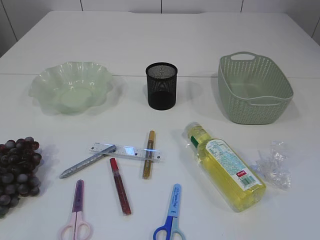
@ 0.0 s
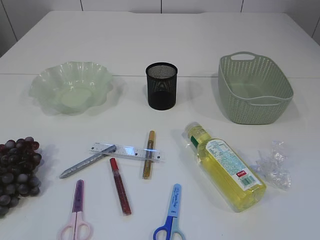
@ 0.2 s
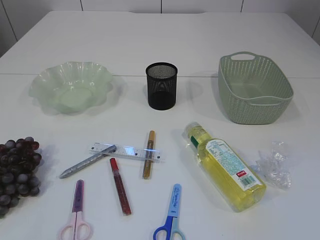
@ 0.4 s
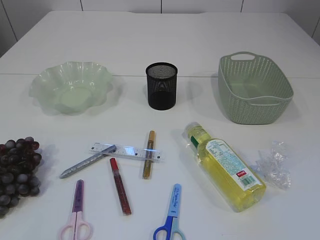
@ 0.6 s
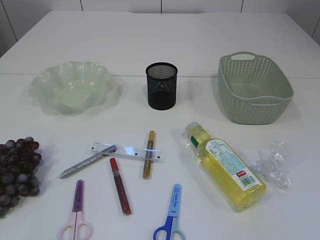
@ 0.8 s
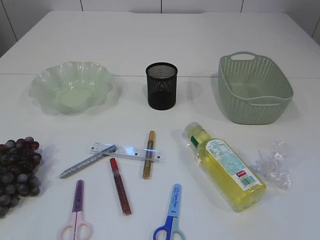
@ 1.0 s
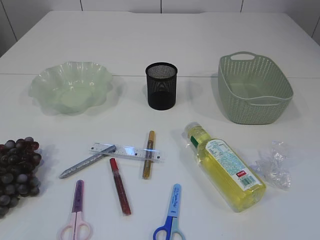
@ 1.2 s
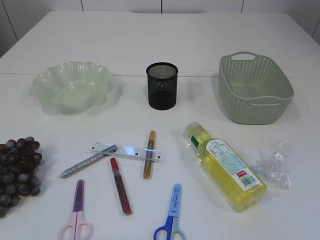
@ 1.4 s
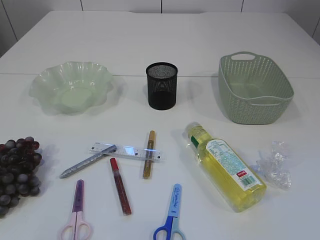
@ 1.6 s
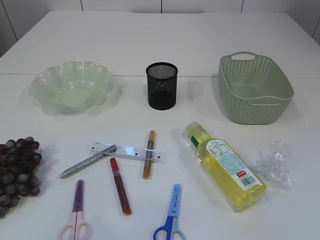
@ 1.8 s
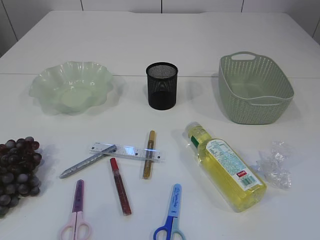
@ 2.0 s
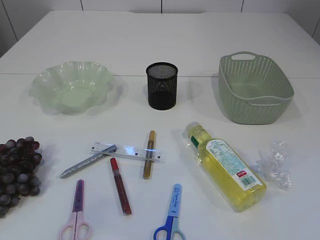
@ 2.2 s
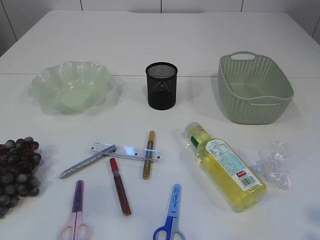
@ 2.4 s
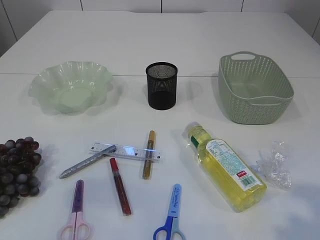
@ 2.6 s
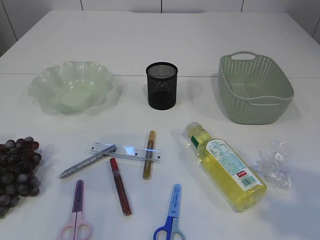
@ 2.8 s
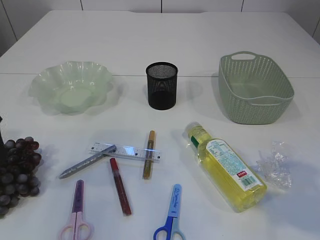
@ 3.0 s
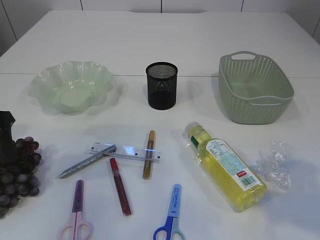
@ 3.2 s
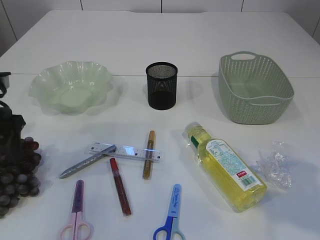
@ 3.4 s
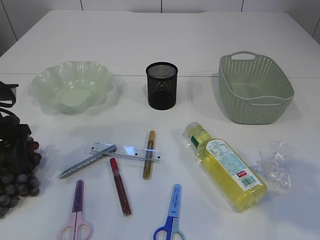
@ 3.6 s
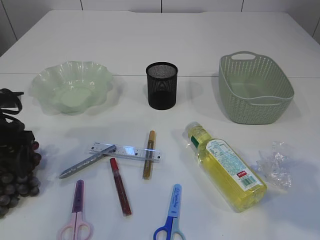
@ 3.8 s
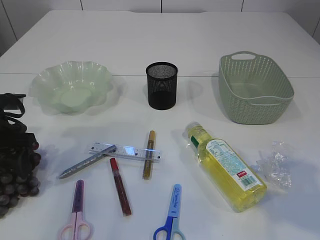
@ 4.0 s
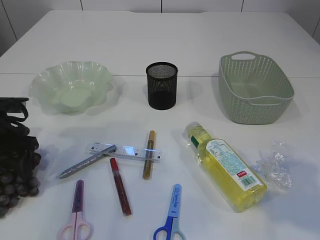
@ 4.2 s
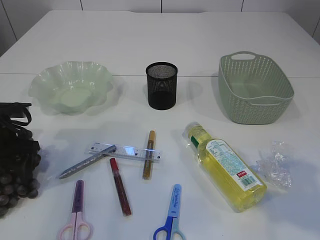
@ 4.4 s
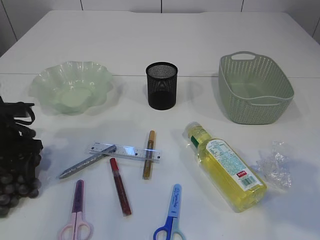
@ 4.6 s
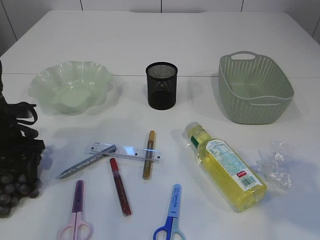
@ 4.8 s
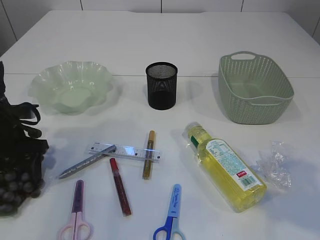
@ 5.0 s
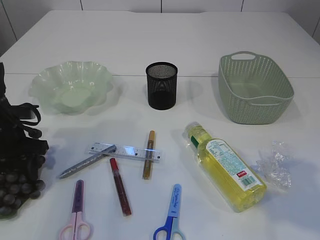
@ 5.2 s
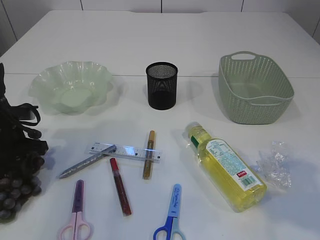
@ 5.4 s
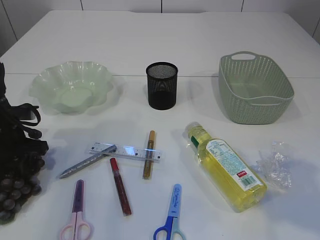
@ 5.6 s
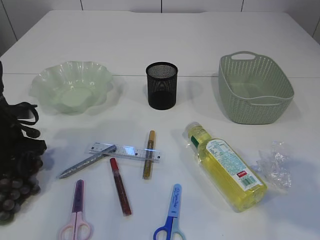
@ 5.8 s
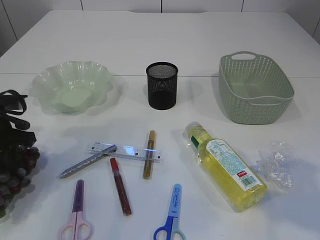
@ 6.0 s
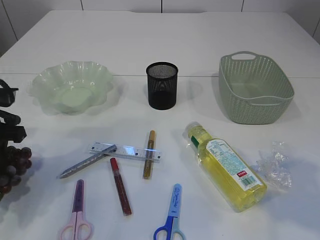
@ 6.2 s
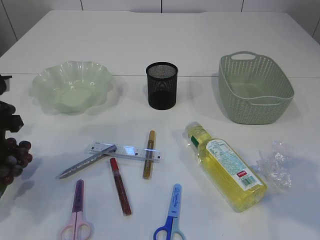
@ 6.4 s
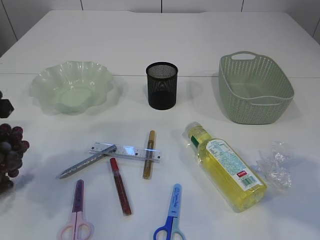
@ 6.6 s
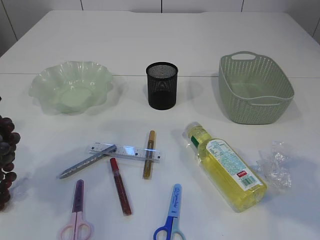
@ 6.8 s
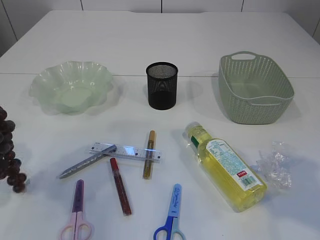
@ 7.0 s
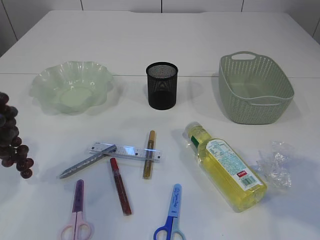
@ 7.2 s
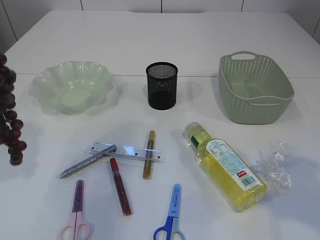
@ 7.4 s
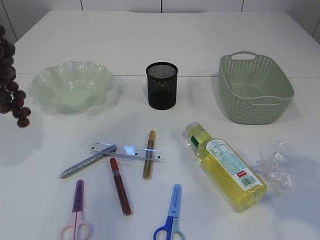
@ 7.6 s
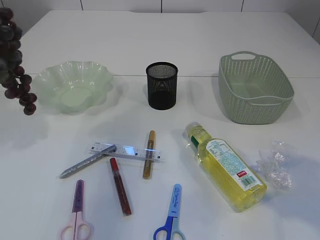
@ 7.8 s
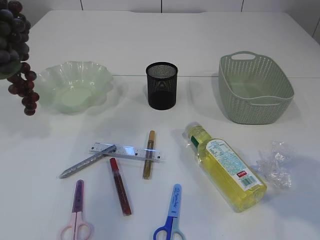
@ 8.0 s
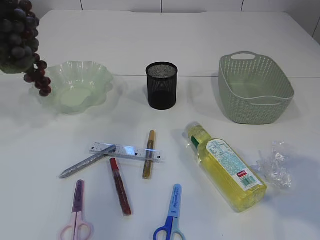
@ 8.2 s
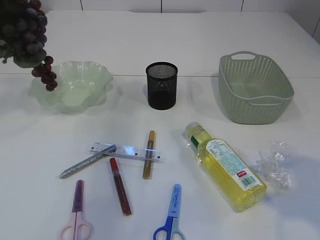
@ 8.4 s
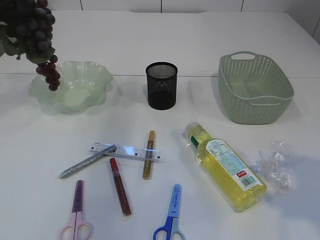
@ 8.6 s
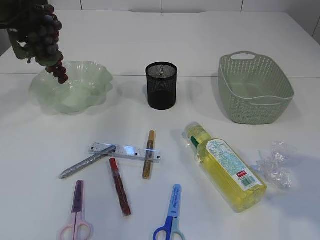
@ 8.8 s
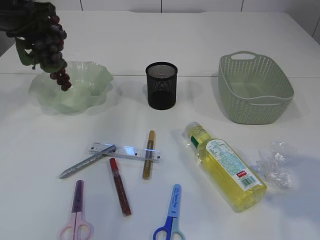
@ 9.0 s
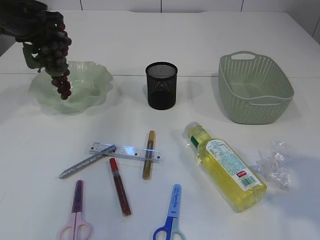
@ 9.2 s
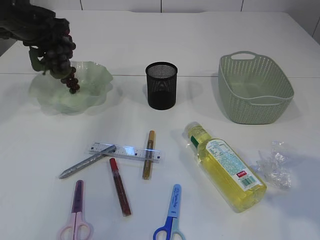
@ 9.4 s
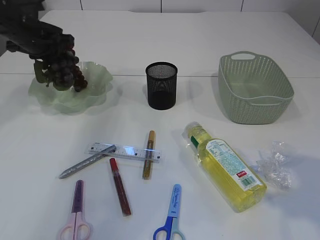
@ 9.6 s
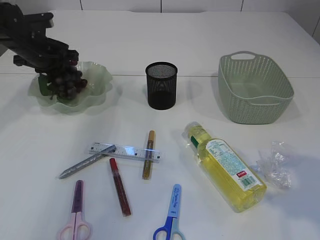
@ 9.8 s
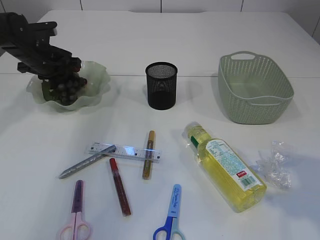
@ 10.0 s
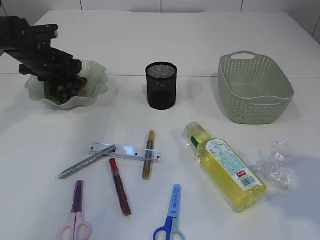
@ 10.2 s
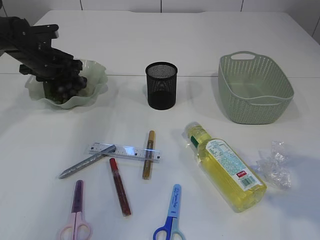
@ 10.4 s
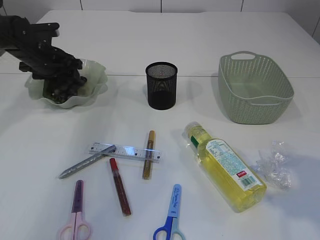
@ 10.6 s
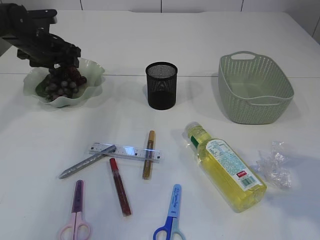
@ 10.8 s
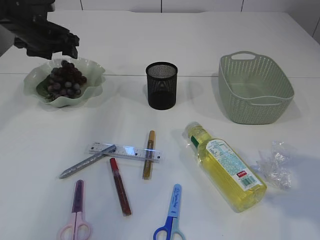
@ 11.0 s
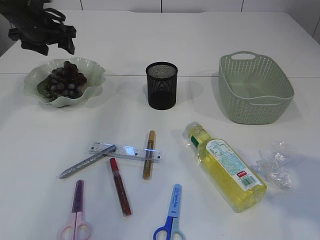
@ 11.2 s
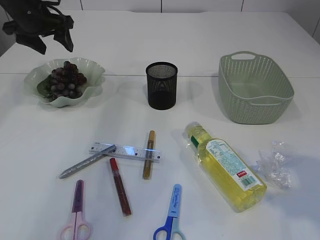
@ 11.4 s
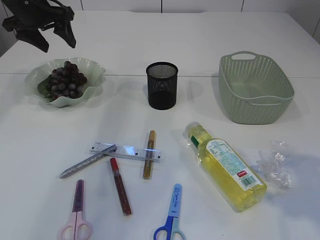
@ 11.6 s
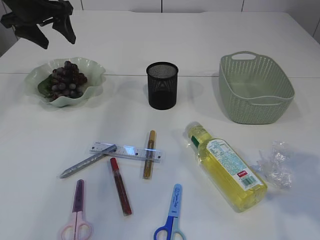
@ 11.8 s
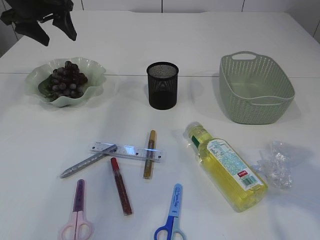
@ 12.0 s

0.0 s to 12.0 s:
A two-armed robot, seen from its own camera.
Step, 0.0 to 7.8 s: Pick up the grapes.
Step, 8.0 to 11.4 s: Place the grapes in the plate.
1.6 to 3.0 s: The right gripper moves forward and upward, roughly 15 cm; the left gripper travels forward by approximately 20 cm.
3.0 to 4.4 s: The left gripper shifts about 15 cm downward and forward.
4.4 to 6.0 s: The left gripper closes its fingers.
6.0 to 7.6 s: The left gripper shifts about 25 cm upward.
7.6 to 9.0 s: The left gripper shifts roughly 20 cm forward and downward.
9.0 to 10.4 s: The left gripper shifts some 15 cm downward and forward, and opens its fingers.
10.4 to 12.0 s: The left gripper travels upward by some 15 cm. The right gripper shifts by some 5 cm.

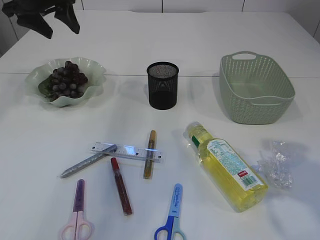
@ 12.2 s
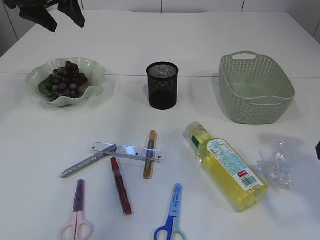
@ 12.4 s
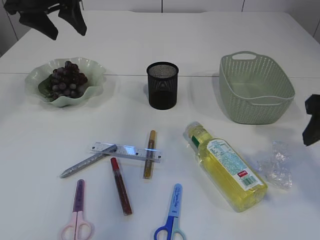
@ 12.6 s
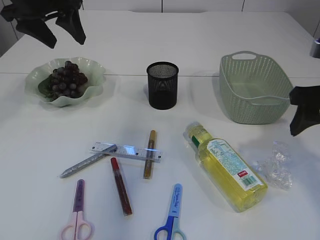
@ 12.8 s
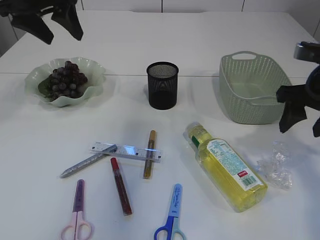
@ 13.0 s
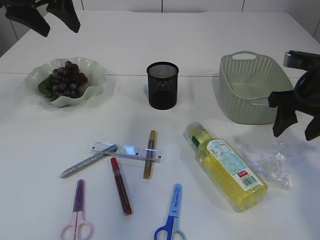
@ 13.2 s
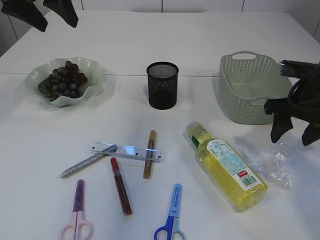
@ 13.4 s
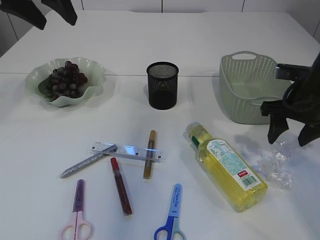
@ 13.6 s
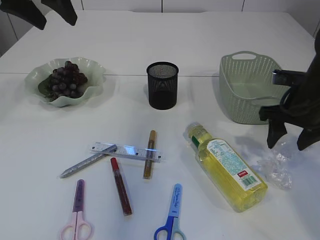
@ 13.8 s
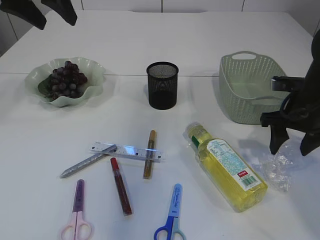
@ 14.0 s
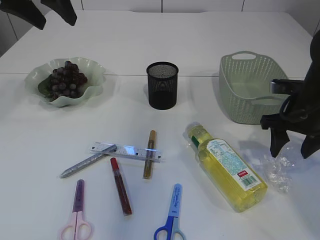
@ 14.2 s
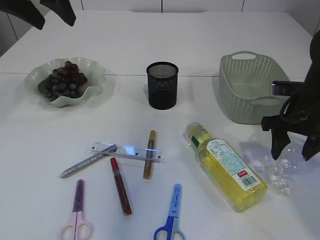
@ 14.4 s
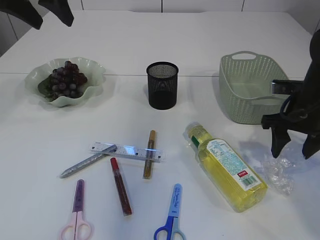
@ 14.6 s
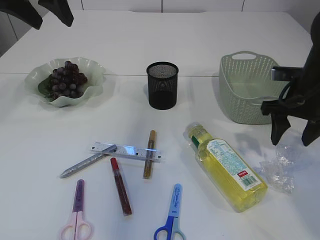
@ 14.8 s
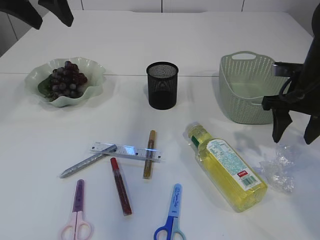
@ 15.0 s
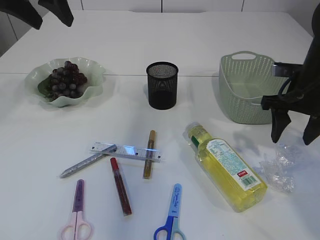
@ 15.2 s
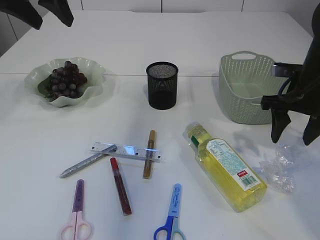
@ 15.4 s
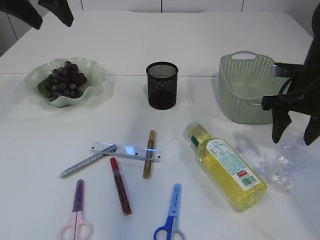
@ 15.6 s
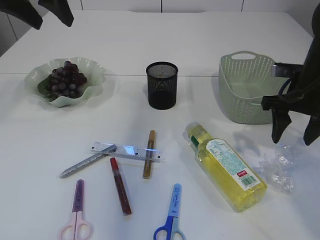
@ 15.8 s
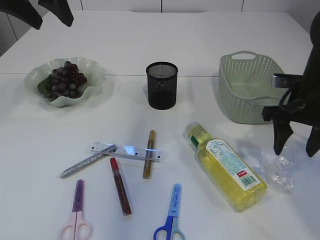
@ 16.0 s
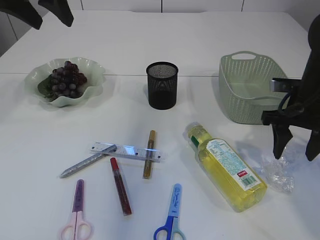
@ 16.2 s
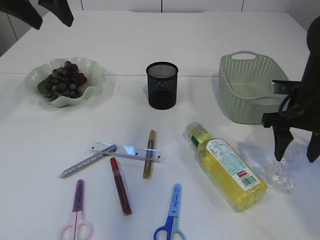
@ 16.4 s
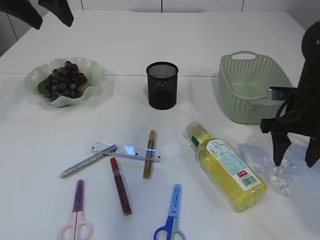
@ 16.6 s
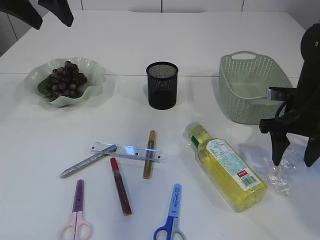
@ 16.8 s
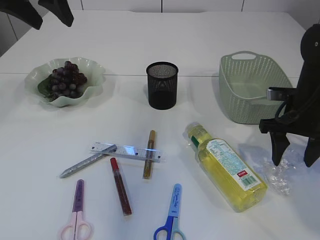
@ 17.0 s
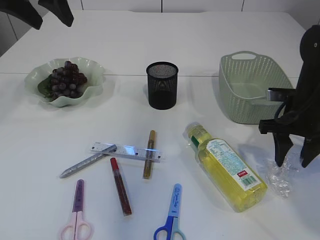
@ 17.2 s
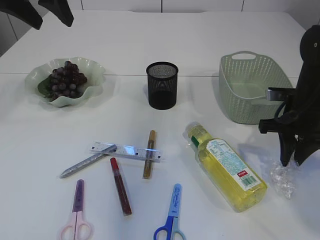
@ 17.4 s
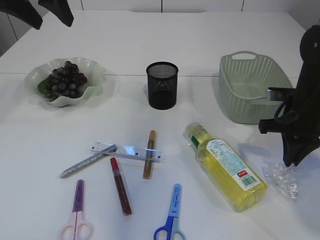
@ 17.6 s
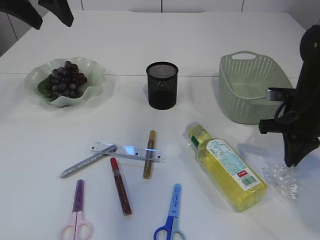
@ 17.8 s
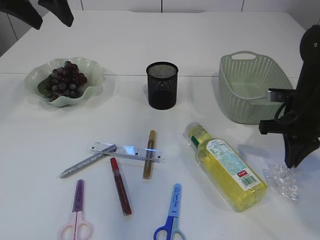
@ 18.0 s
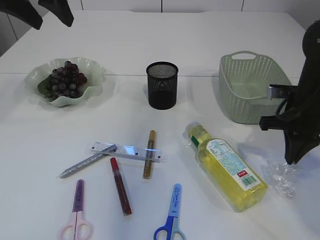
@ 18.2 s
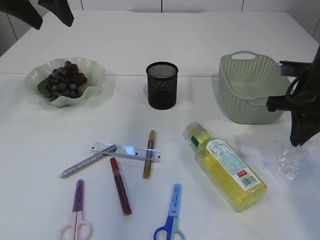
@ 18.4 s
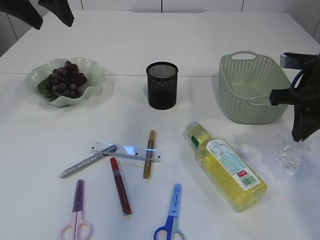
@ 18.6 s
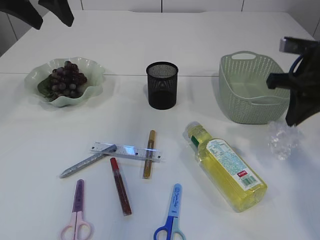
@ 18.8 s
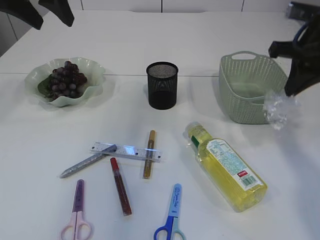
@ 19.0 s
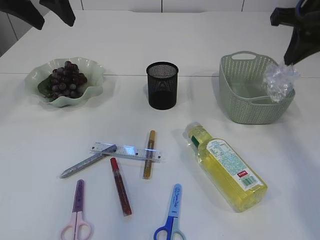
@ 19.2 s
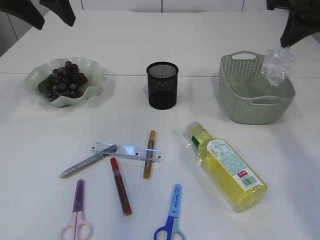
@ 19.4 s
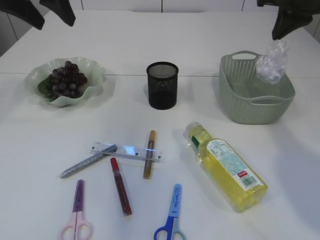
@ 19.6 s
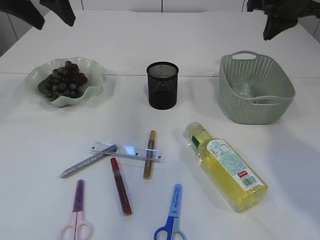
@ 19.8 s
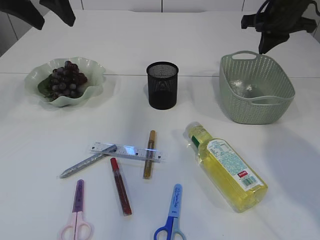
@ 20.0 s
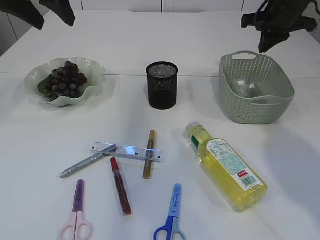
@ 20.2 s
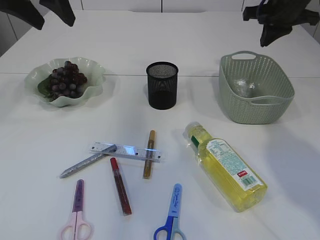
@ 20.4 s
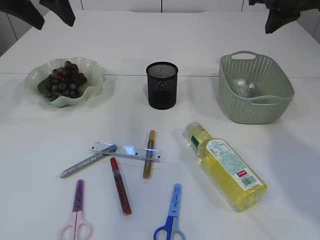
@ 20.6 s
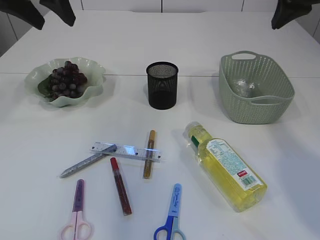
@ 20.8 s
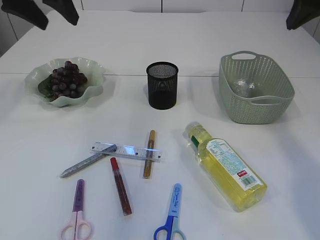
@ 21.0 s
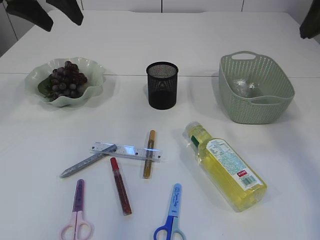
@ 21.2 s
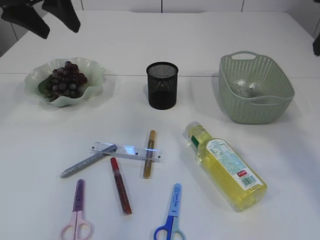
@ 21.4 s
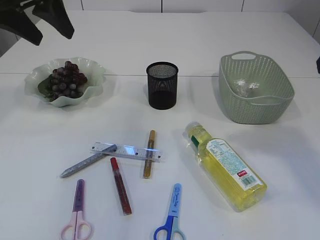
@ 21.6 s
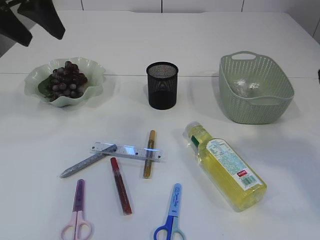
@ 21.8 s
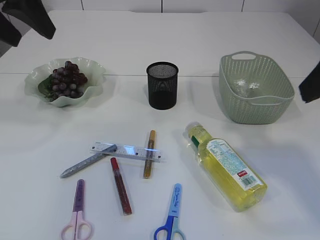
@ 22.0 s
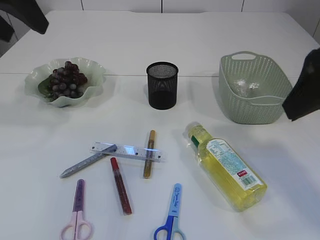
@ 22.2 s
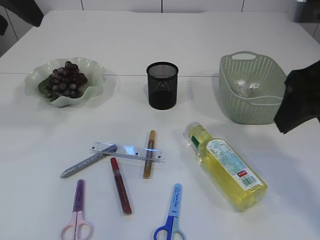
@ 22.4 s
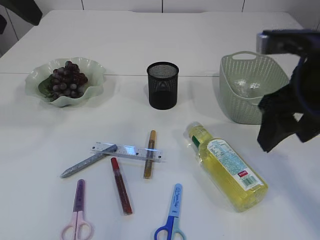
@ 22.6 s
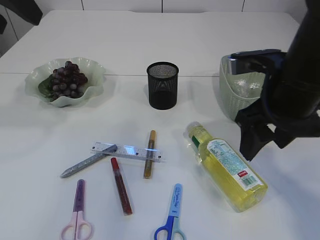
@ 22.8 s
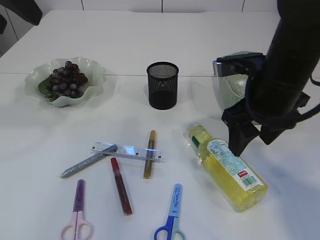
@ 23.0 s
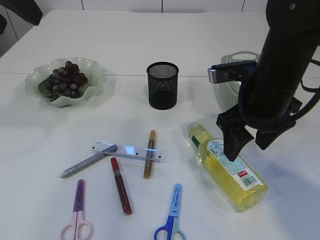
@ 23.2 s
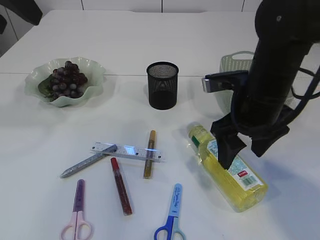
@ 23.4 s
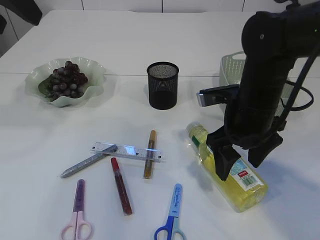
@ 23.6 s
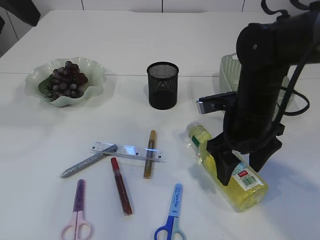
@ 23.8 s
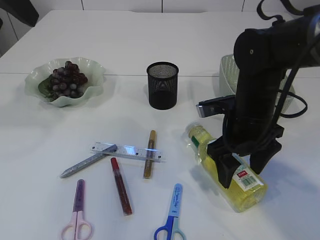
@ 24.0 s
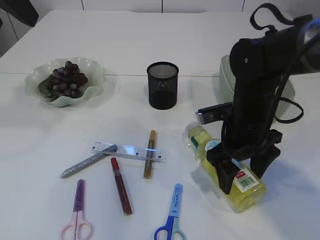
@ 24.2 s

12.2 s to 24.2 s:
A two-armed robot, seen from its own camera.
Step, 12.2 to 18.8 s: Pick up the plastic.
Step, 19.0 to 20.2 s: Place the plastic in the basket.
12.2 to 13.8 s: The left gripper heads backward and upward, covering some 10 cm; the right gripper is displaced forward and downward by about 20 cm.
13.8 to 16.6 s: The grippers stay close to where they were, moving slightly.
16.6 to 18.2 s: The right gripper closes.
18.2 to 19.8 s: The right gripper goes about 20 cm upward and forward.
19.8 to 21.2 s: The right gripper travels backward and upward by roughly 15 cm.
21.2 to 22.6 s: The left gripper heads backward, covering about 10 cm, while the right gripper shifts approximately 15 cm downward, backward and to the left, and opens up.
22.6 to 24.2 s: The right gripper heads downward and forward, covering roughly 15 cm.
